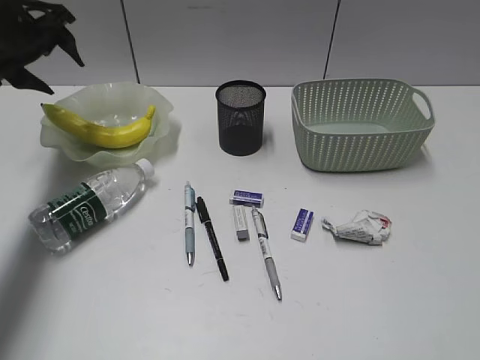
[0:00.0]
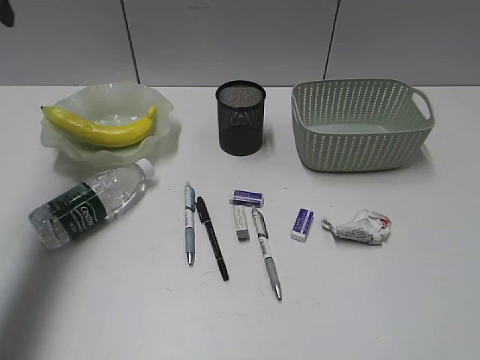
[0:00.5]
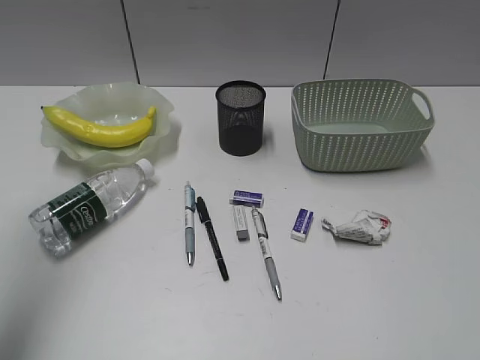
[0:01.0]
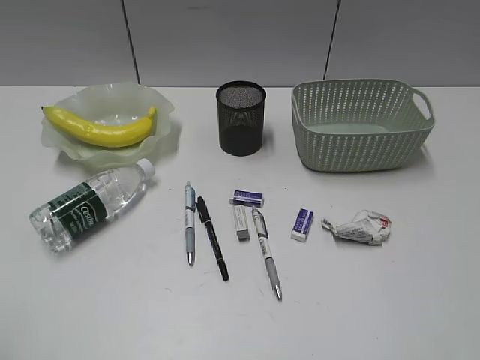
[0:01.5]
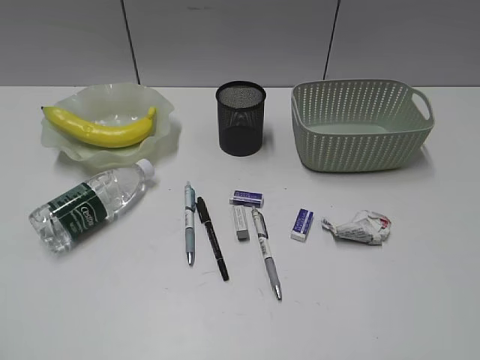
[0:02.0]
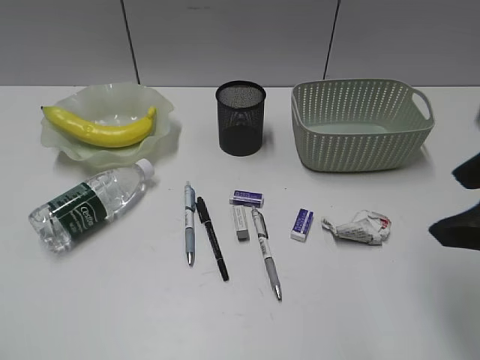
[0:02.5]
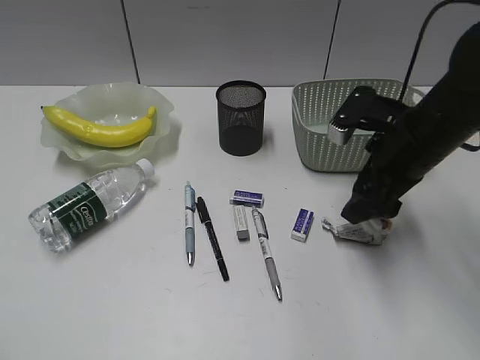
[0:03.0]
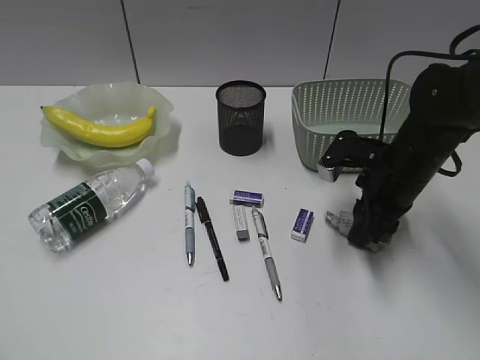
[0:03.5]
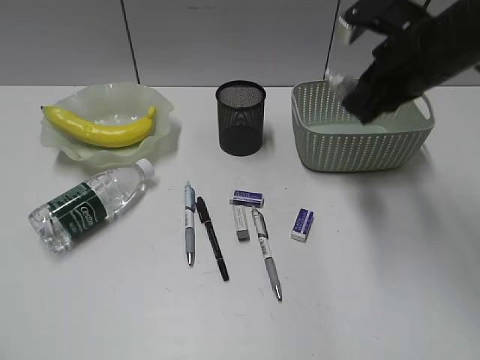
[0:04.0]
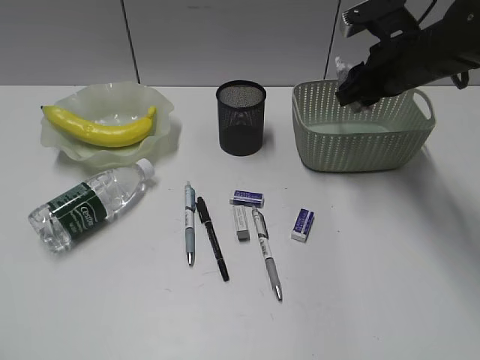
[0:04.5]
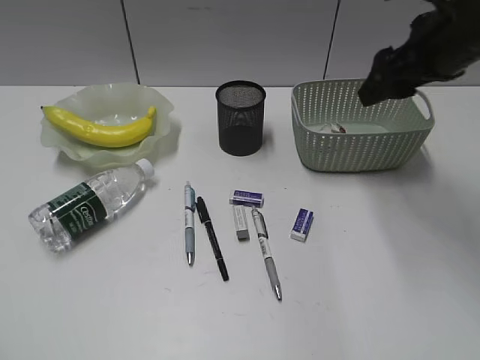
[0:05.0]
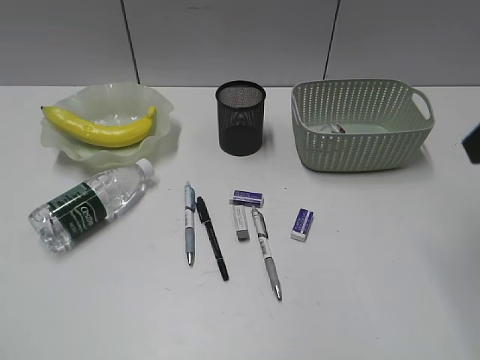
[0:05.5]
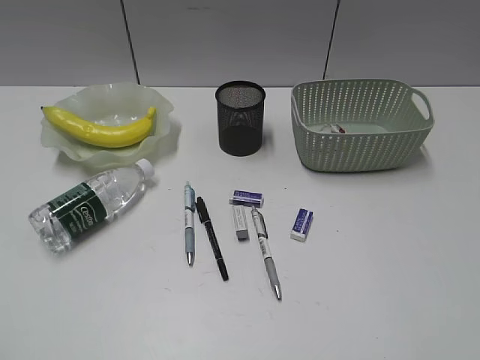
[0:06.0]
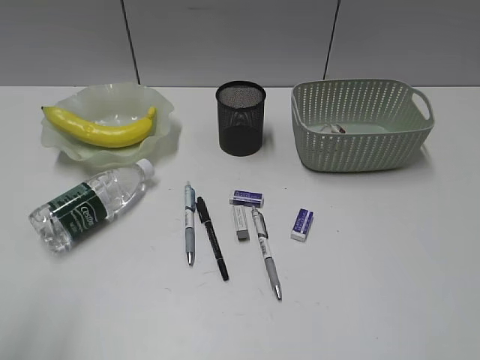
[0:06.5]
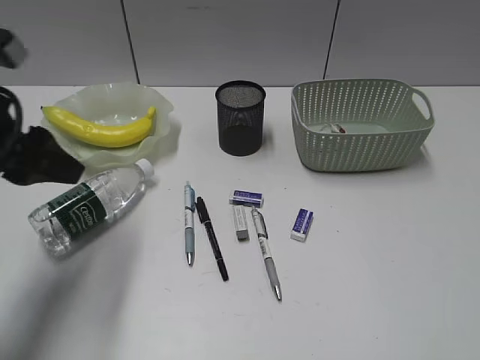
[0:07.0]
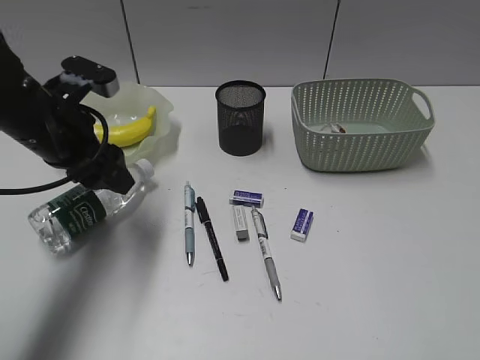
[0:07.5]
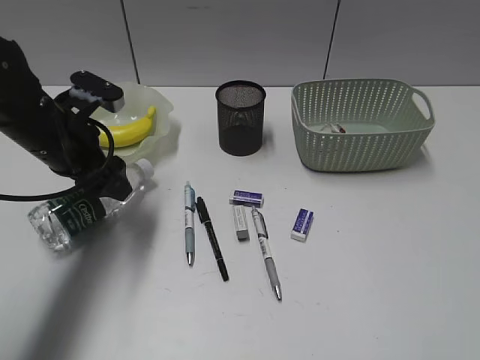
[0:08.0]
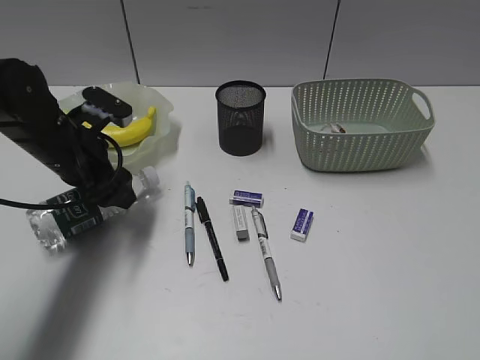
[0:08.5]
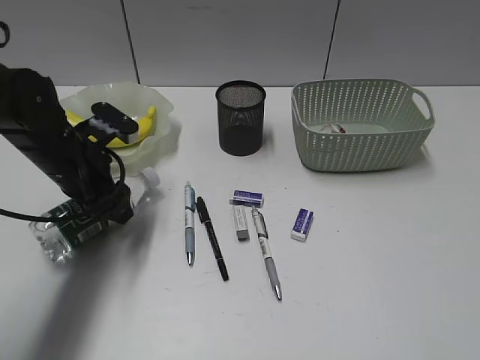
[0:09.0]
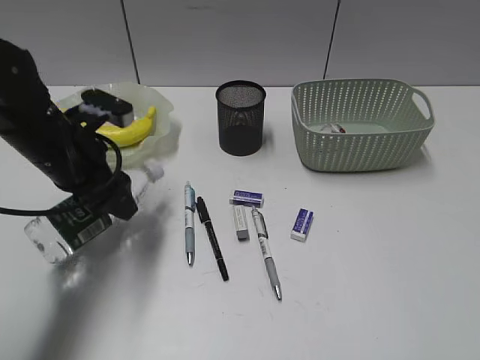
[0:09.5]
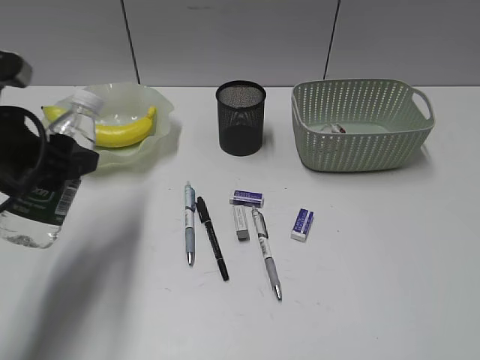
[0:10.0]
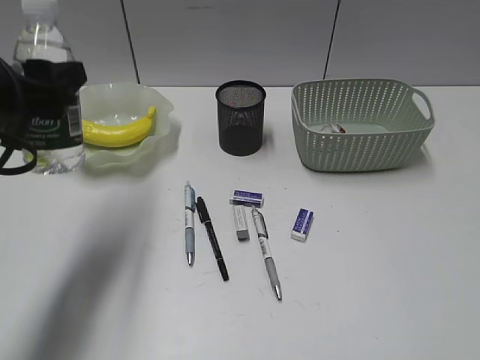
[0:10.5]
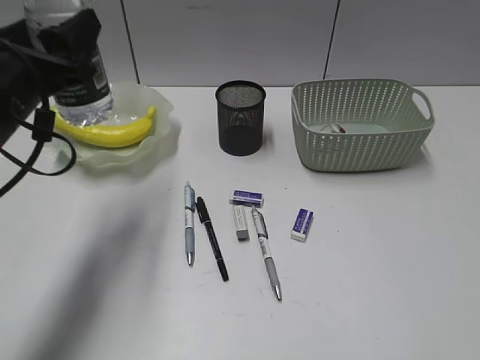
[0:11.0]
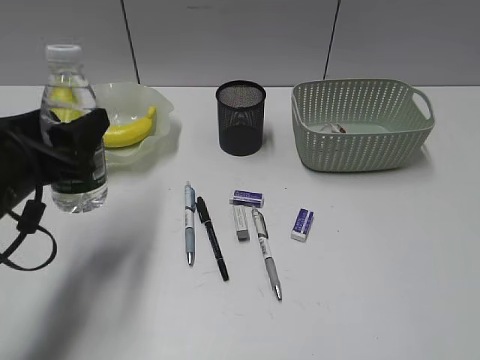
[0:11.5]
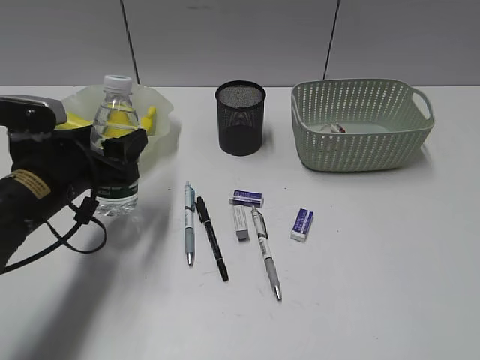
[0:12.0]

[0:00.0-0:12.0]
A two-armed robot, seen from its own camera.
Step, 0:00.0 to 0:03.5: Grasp the waste paper with right gripper.
Step, 0:04.0 to 0:04.5: Place the waste paper in the basket with right gripper.
Step, 0:05.0 to 0:08.5: Grasp the bottle with left gripper.
0:00.0 to 0:02.0: The left gripper moves backward, about 50 cm, and closes.
0:02.0 to 0:04.0: The right gripper moves forward, approximately 30 cm, and closes up.
0:04.0 to 0:06.0: The right gripper moves backward, about 30 cm, and opens up.
0:06.0 to 0:08.0: The left gripper moves forward, about 35 cm, and opens its fingers.
0:08.0 to 0:10.0: The left gripper is displaced backward by some 10 cm.
0:10.0 to 0:12.0: The left gripper moves downward, about 10 cm.

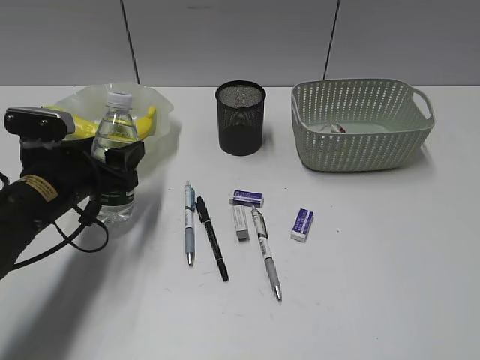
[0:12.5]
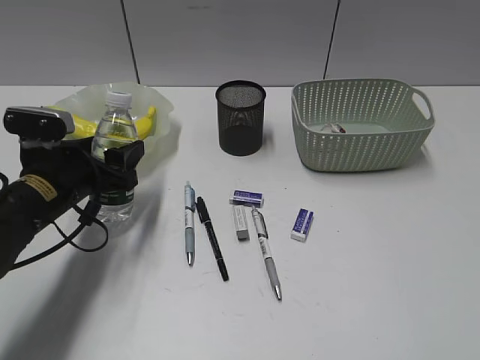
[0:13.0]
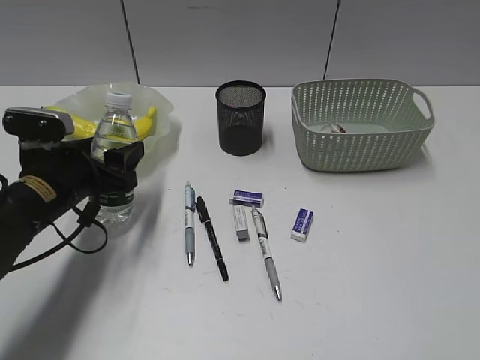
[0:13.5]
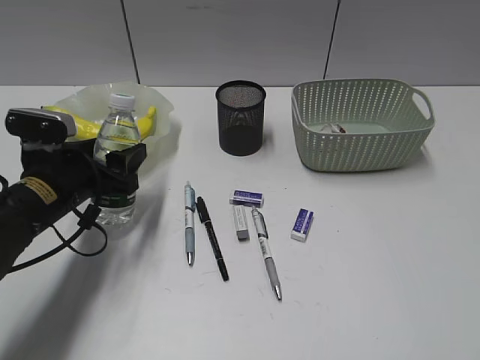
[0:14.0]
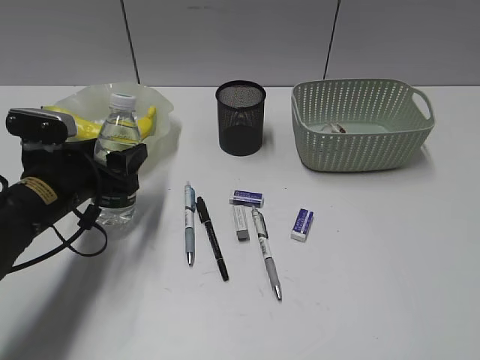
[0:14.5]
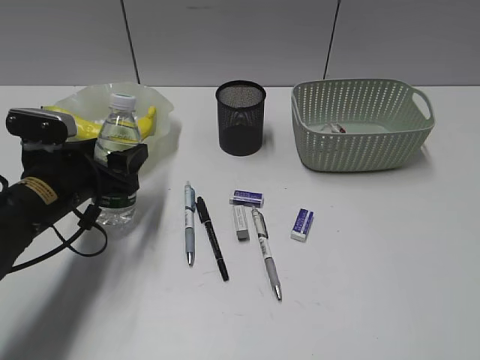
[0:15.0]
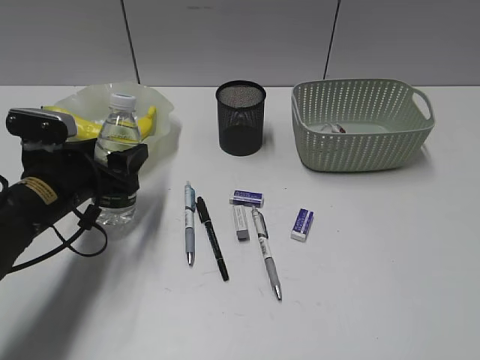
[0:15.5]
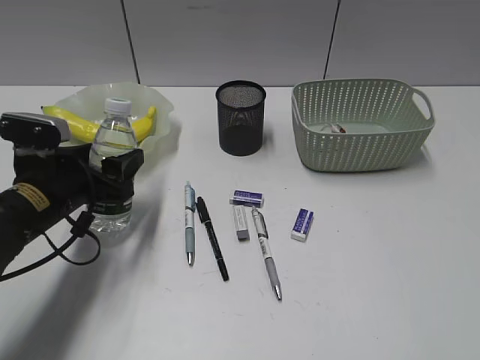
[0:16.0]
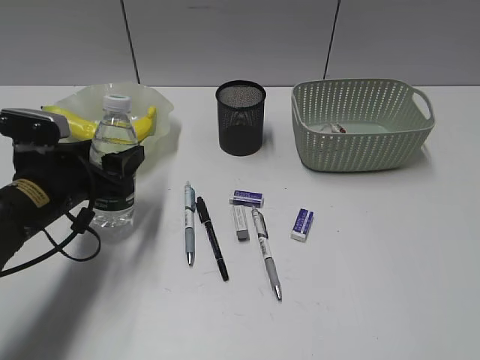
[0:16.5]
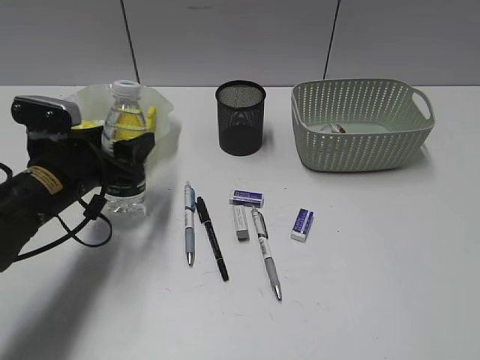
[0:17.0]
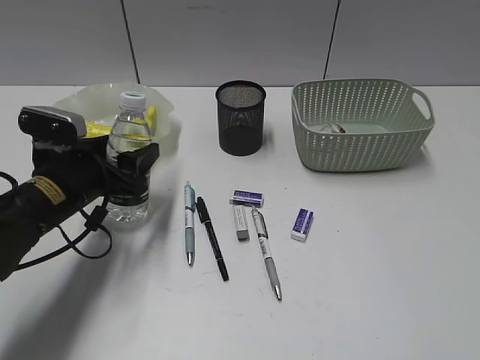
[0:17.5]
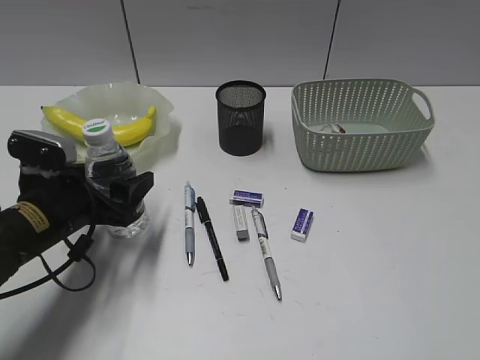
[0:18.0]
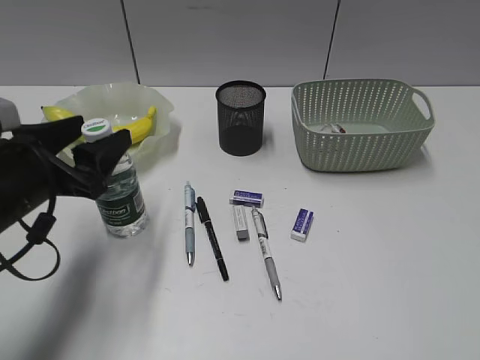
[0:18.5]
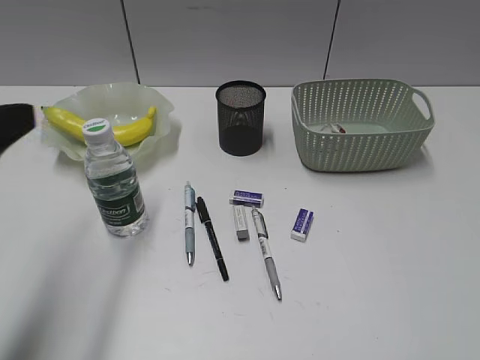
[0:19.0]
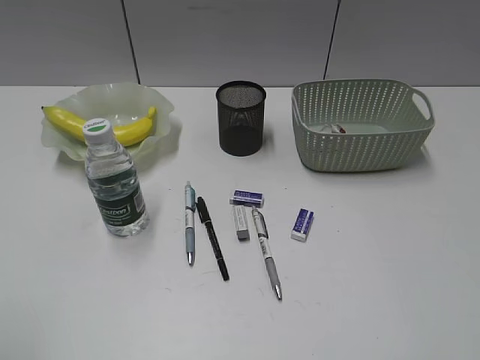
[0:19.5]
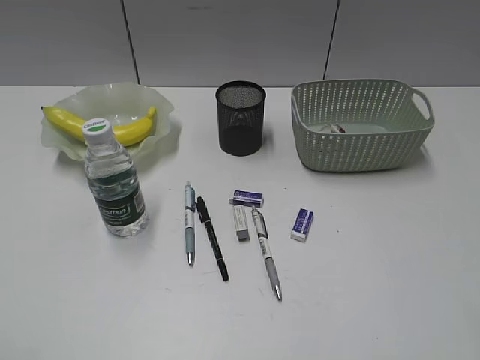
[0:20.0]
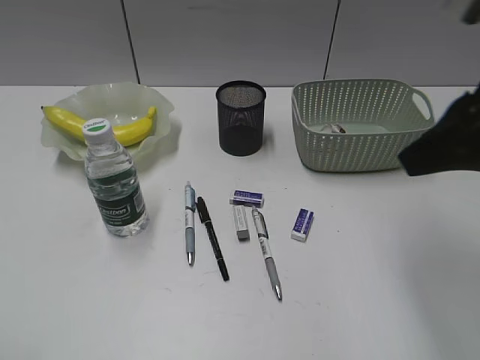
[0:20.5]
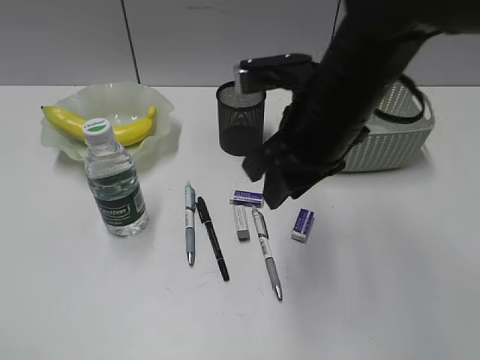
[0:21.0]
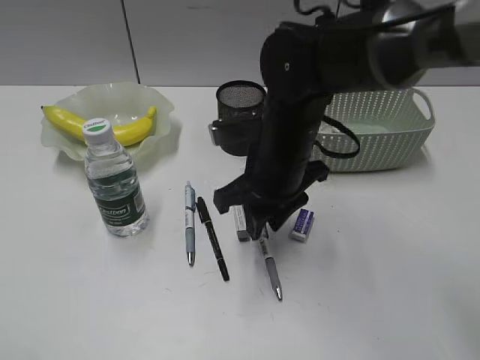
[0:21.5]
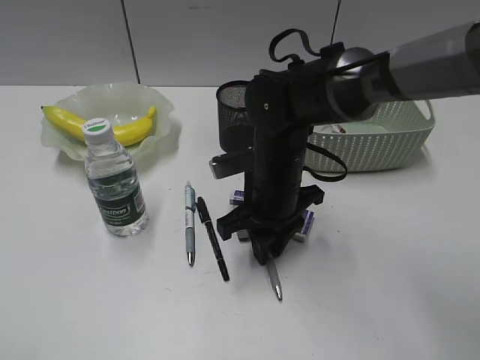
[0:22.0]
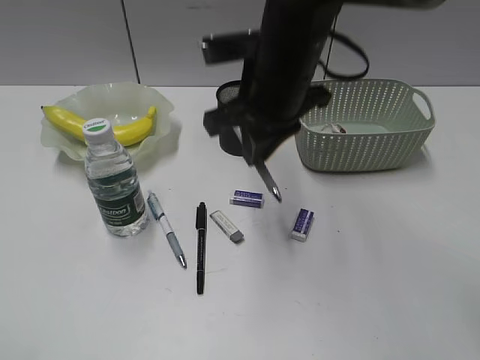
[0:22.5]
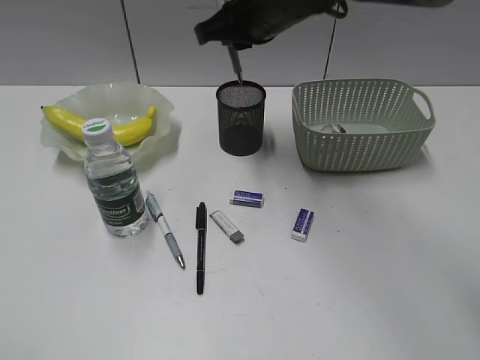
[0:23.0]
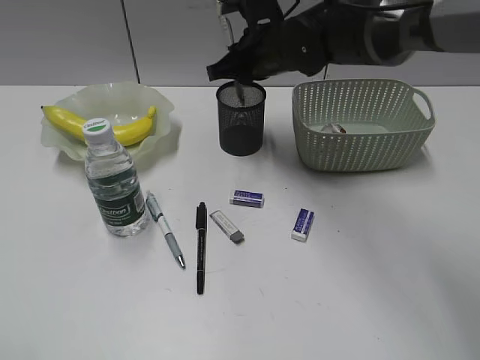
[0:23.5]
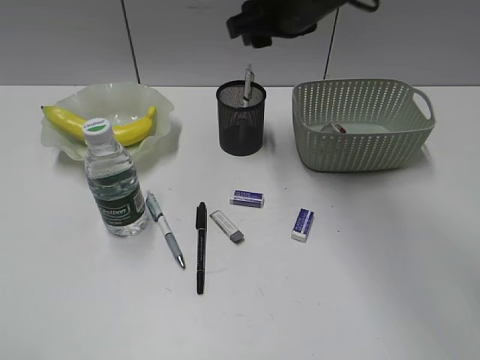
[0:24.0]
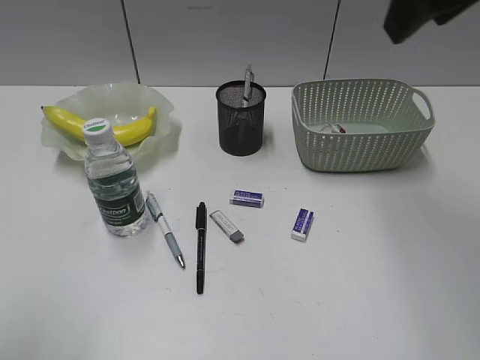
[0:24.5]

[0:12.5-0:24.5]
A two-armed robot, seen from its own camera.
Step, 0:12.5 to 0:18.5: Stand the bottle with left gripper.
Step, 0:19.0 to 0:22.0: Grasp the gray pen with right gripper.
Step, 0:22.5 to 0:23.5: Place the gray pen in pen holder with right gripper.
0:12.5 to 0:14.5: The two grippers keep their place.
0:14.5 to 0:16.5: The grippers make only small movements.
0:16.5 to 0:18.5: The left gripper moves approximately 5 cm.
0:18.5 to 0:20.5: The left gripper goes some 30 cm backward, upward and to the left; the right gripper shifts roughly 20 cm forward and to the left, and closes up.
0:20.5 to 0:22.5: The right gripper shifts approximately 25 cm to the left, forward and downward, and closes up.
0:22.5 to 0:24.5: The right gripper moves upward and to the right, approximately 20 cm, and opens. The left gripper changes place by some 5 cm.

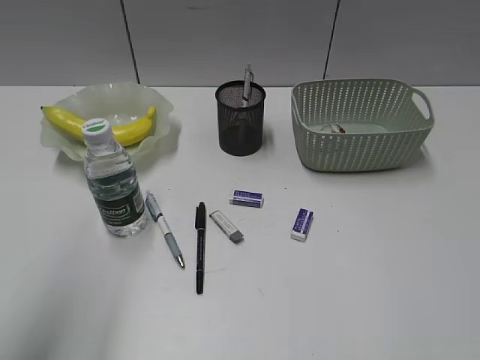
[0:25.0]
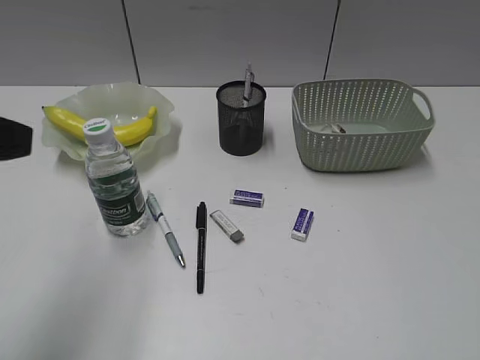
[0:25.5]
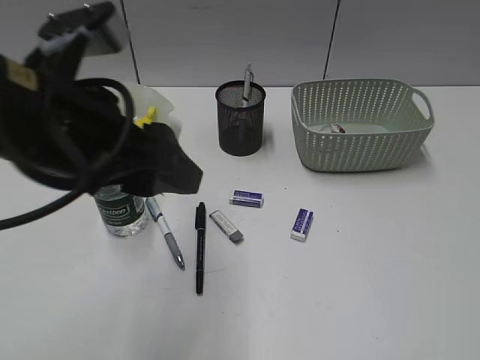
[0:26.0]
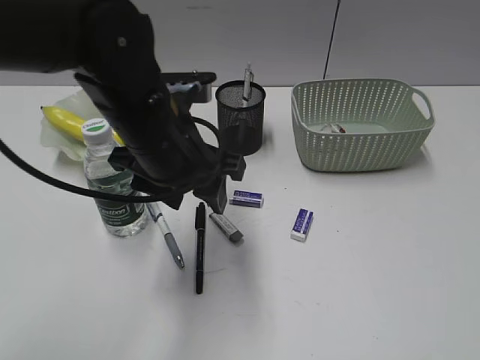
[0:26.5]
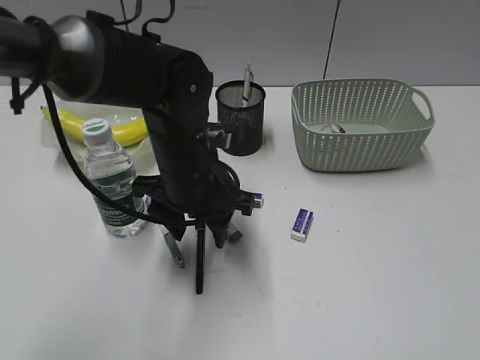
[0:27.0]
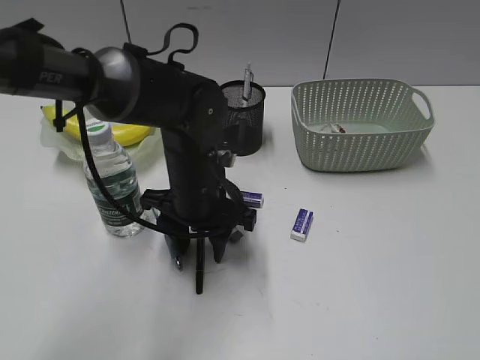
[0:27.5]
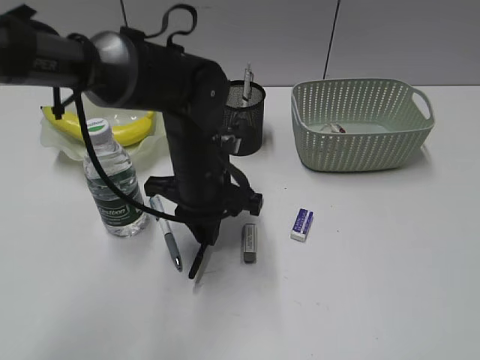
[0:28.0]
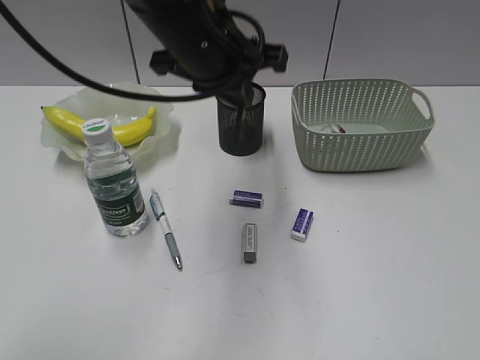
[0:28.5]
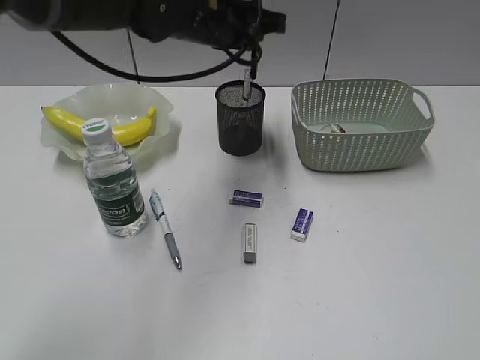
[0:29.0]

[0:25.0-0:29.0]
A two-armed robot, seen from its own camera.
Step, 0:25.0 to 0:27.5: Grasp the black pen with left gripper.
0:25.0 to 0:27.0: The left gripper heads to the right, forward and downward, covering about 30 cm; the right gripper shifts approximately 5 cm backward.
0:27.0 to 0:29.0: The left gripper moves upward and forward, approximately 15 cm, and closes up.
